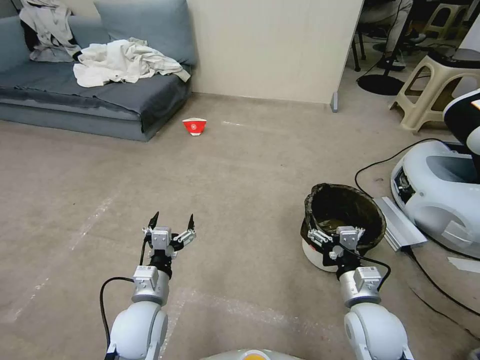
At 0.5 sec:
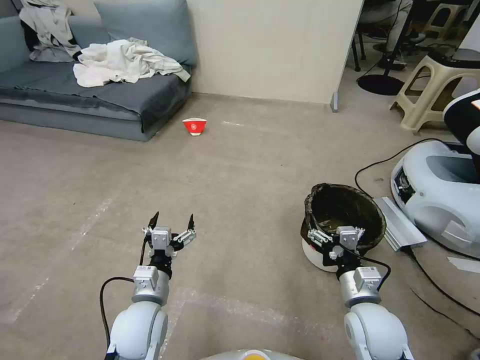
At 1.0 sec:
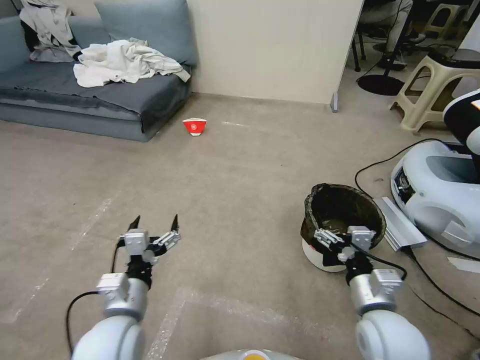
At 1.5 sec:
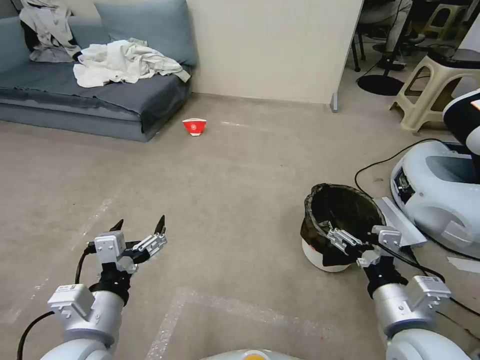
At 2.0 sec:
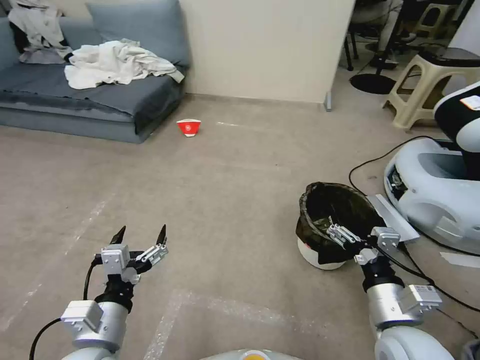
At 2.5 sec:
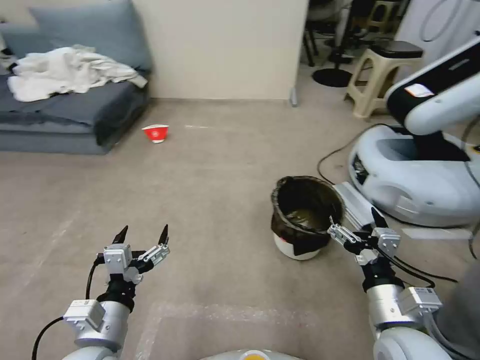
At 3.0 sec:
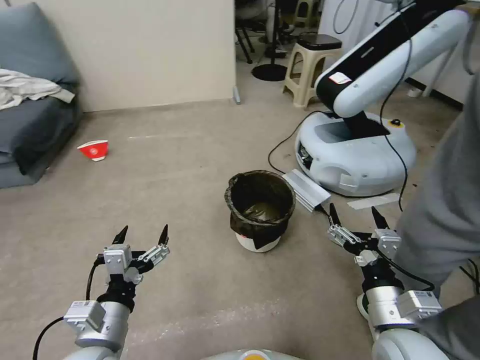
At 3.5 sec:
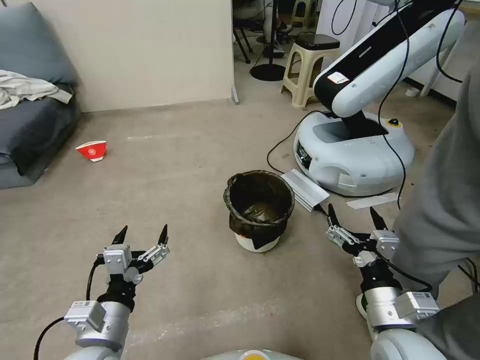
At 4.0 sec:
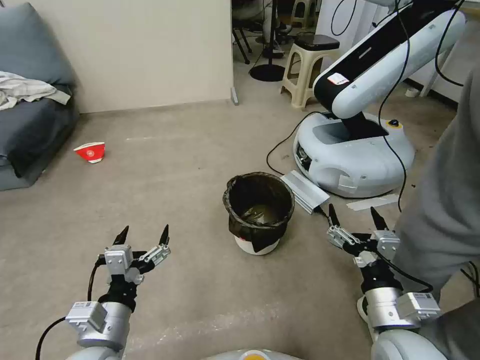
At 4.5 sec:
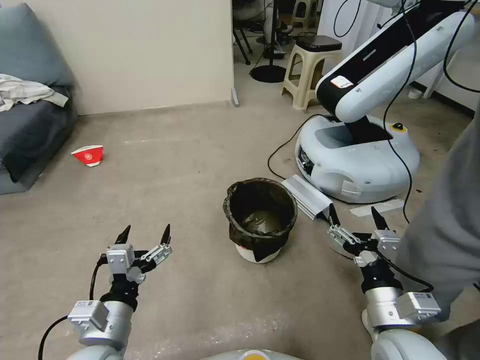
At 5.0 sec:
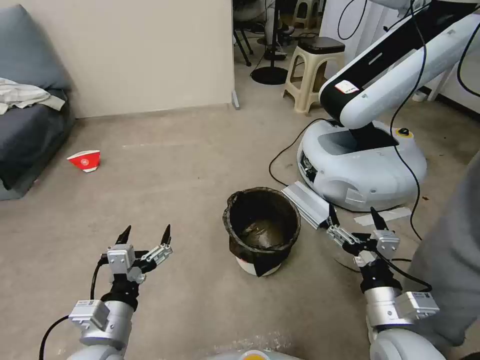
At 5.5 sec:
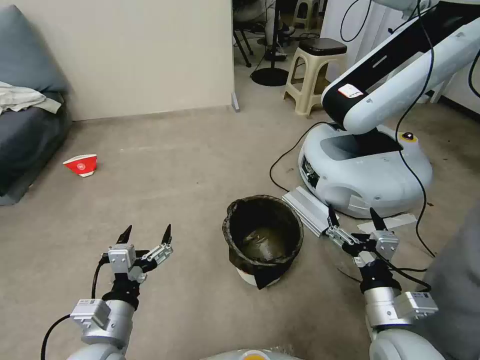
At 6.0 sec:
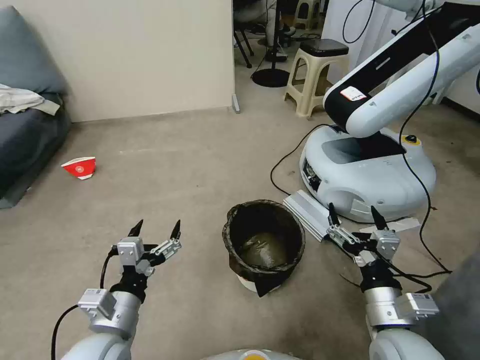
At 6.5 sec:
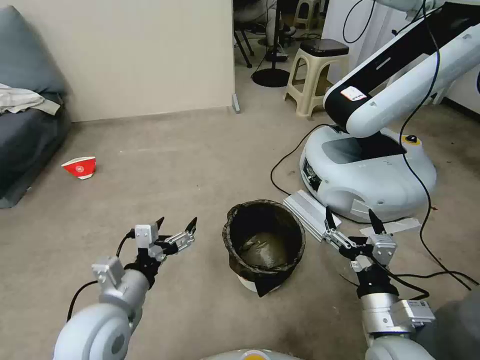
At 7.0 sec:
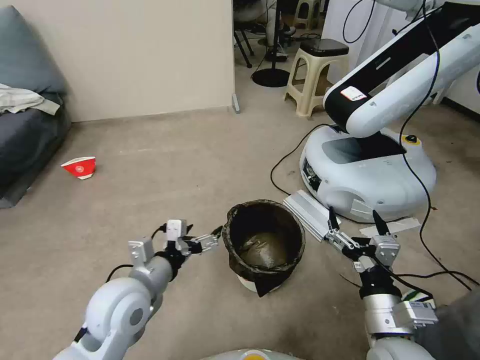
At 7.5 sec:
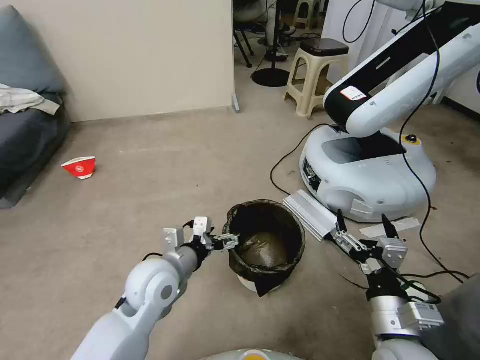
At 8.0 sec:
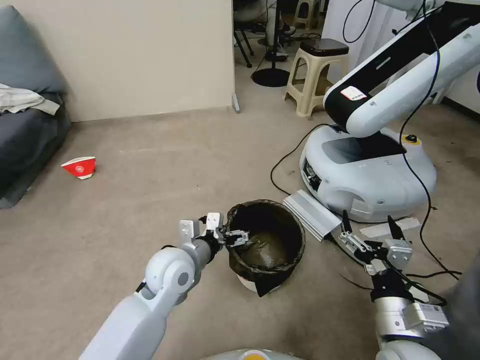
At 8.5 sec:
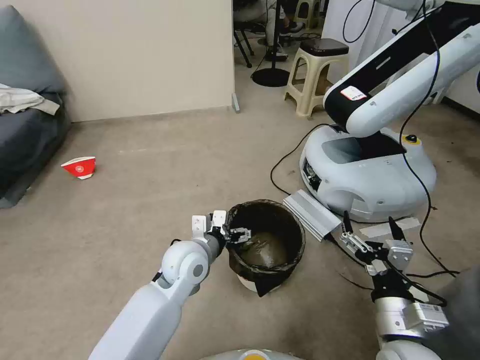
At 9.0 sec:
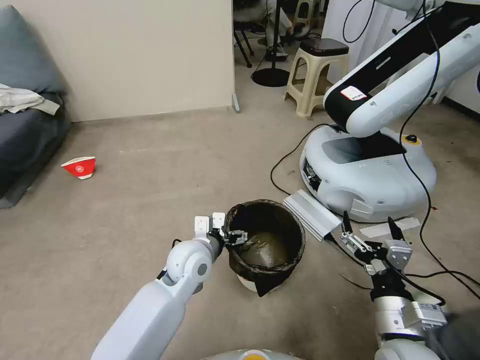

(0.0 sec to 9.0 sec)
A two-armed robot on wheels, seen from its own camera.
Task of the whole recording: Pick up the trash can from the floor.
4.5 sec - 7.0 sec: The left gripper goes some 10 cm forward.
7.0 sec - 9.0 sec: The left gripper heads forward, to the right and downward, covering approximately 15 cm.

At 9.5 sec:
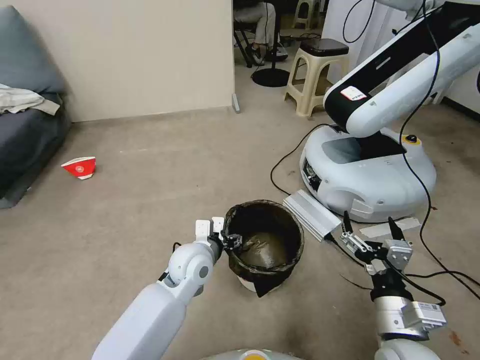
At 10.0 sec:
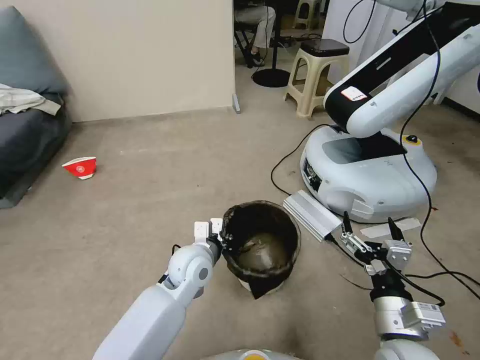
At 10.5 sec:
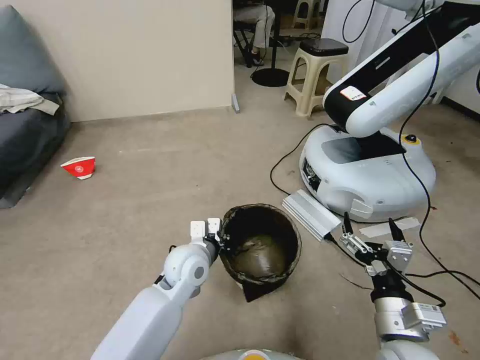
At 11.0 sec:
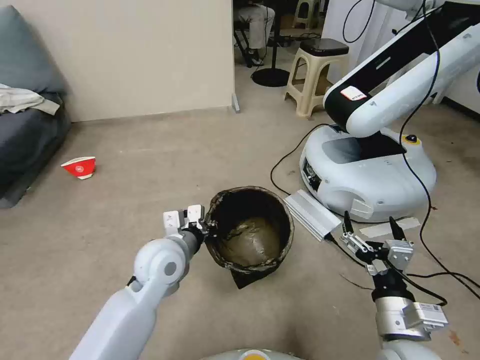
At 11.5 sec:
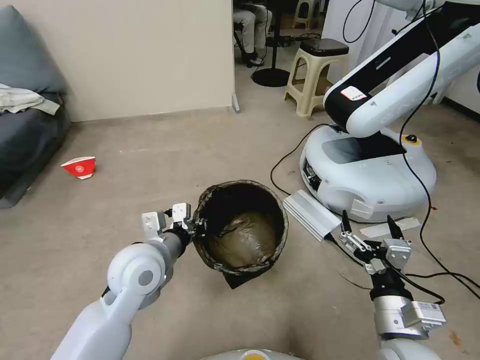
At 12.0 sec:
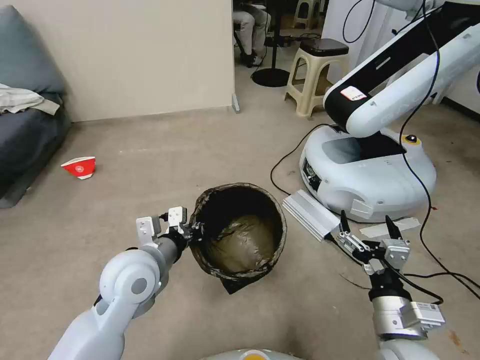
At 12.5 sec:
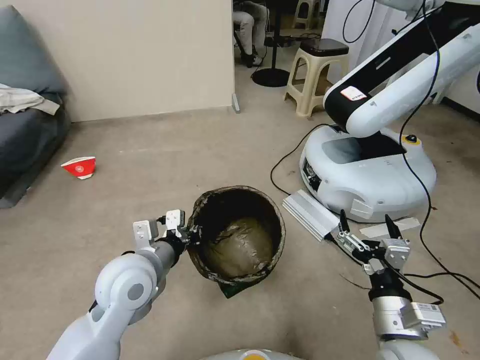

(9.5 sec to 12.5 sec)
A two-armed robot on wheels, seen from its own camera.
Task of the whole recording: Pick up the trash can from the floor.
9.5 sec - 11.0 sec: The left gripper is displaced upward by approximately 5 cm, and closes.
11.0 sec - 12.5 sec: The left gripper shifts some 5 cm backward.
